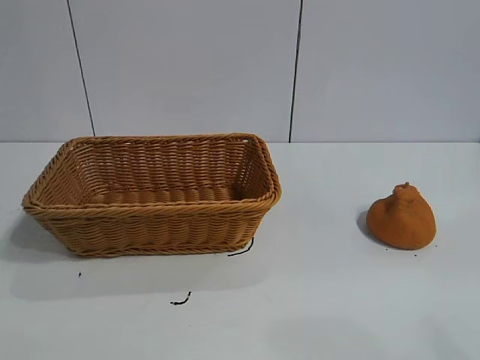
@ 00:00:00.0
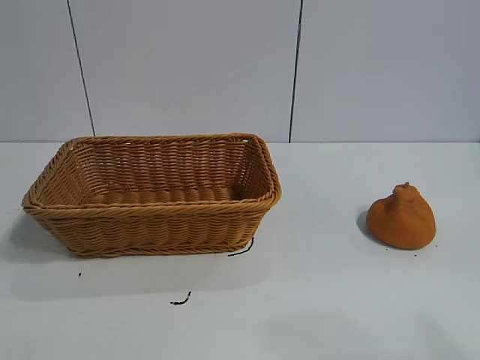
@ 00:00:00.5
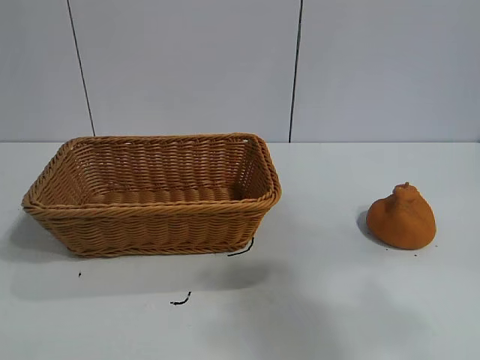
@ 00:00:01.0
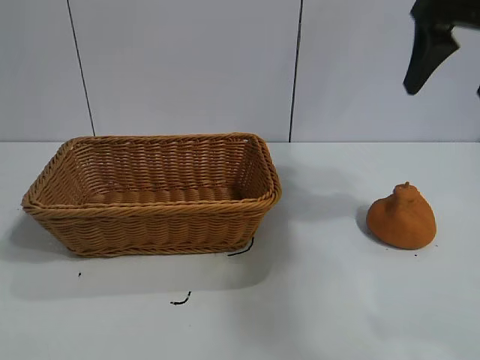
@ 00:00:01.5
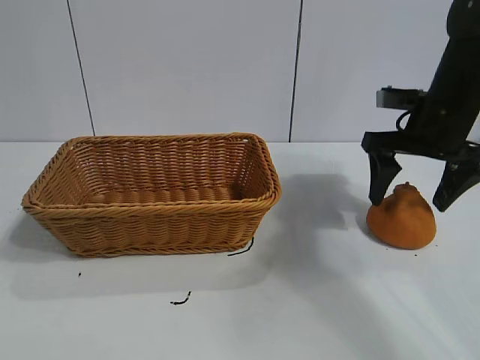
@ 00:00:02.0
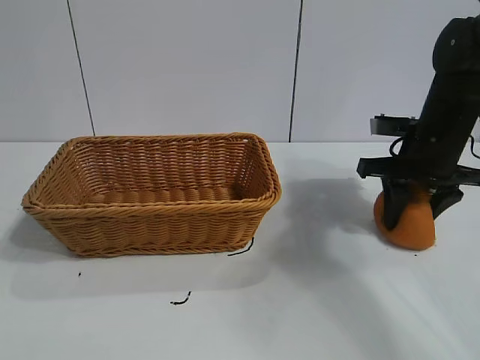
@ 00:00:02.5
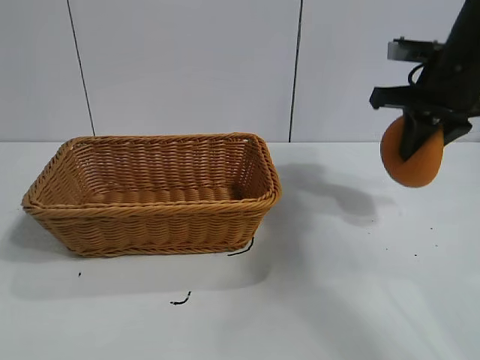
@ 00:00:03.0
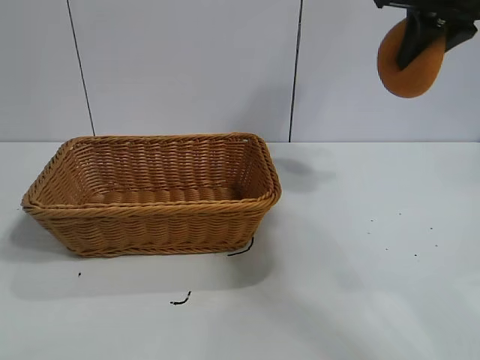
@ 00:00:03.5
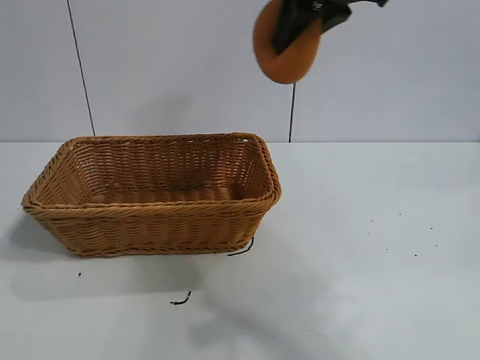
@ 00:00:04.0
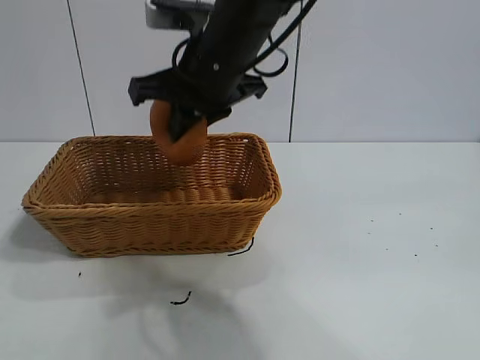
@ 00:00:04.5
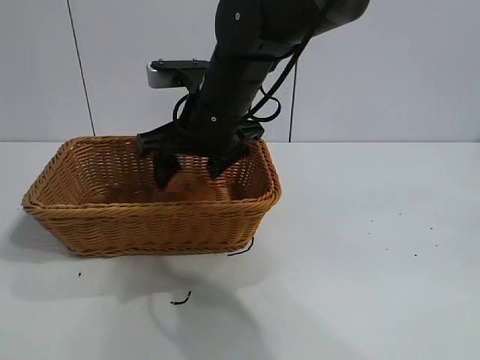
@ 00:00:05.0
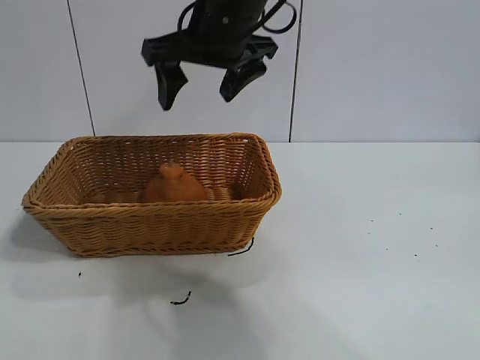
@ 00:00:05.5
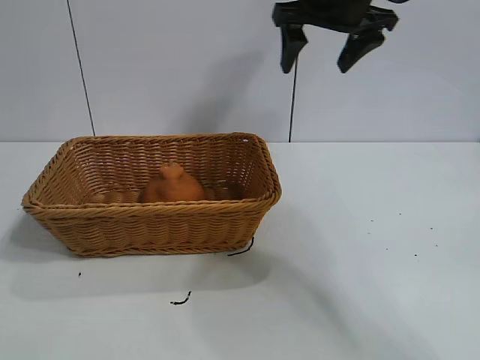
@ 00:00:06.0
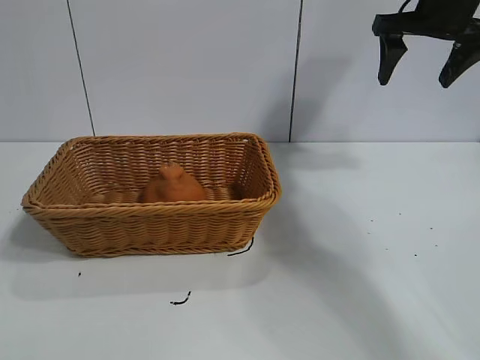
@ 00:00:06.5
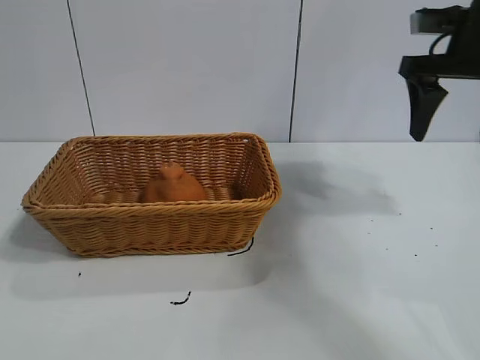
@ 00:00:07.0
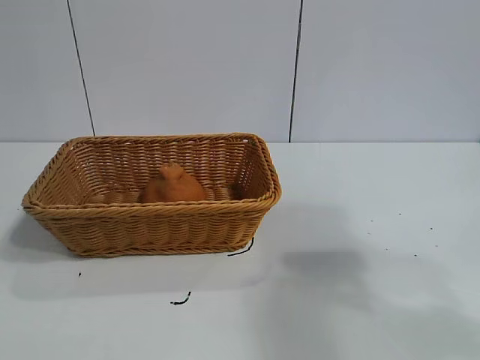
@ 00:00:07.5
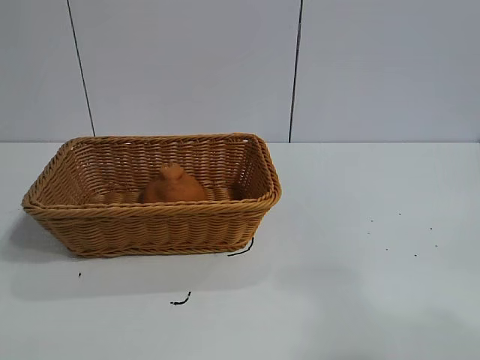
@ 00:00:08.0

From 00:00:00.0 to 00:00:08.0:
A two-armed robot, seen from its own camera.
Task of the whole recording: pick up the orange and put it into the basket.
Step, from 00:00:01.0 to 00:00:02.5: Grasp the orange with right gripper.
Step, from 00:00:03.0 to 00:00:05.0: Place the orange in the basket with right gripper.
